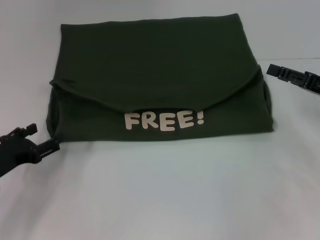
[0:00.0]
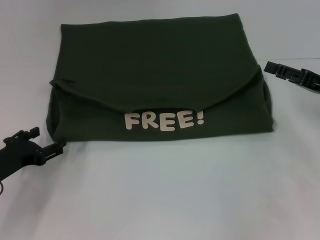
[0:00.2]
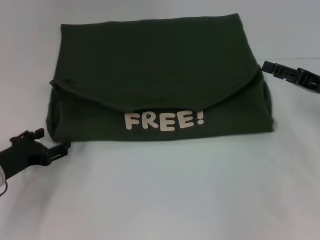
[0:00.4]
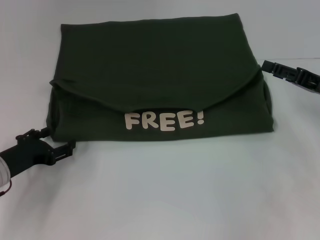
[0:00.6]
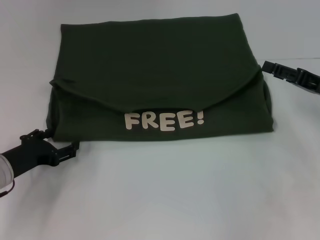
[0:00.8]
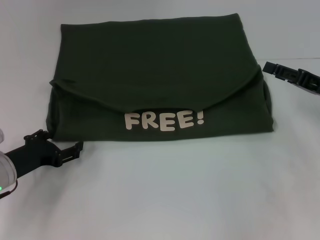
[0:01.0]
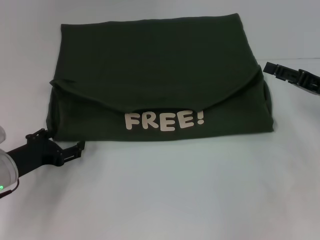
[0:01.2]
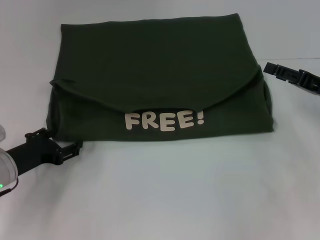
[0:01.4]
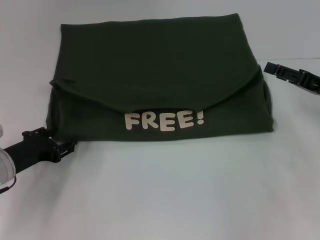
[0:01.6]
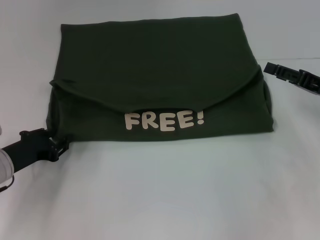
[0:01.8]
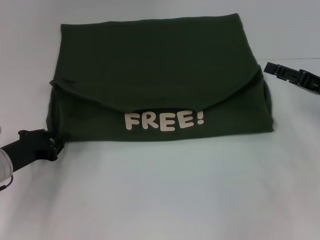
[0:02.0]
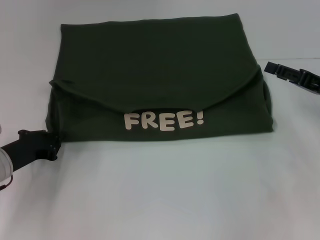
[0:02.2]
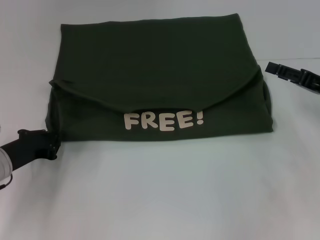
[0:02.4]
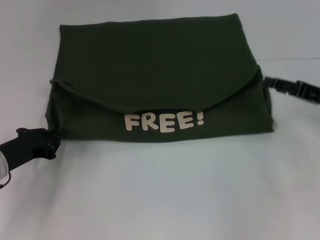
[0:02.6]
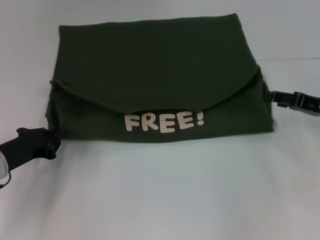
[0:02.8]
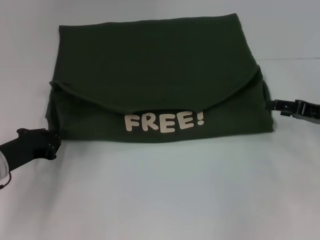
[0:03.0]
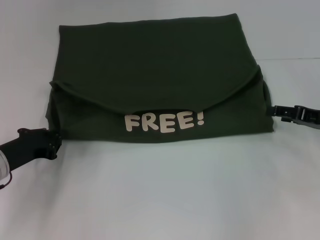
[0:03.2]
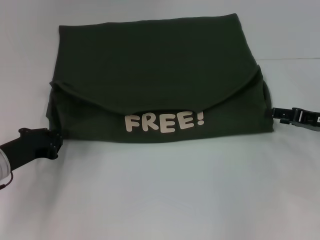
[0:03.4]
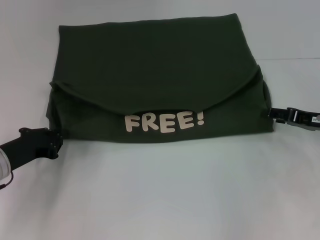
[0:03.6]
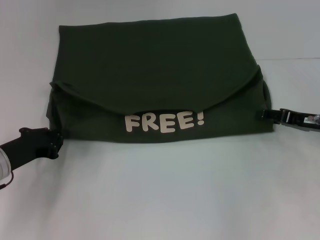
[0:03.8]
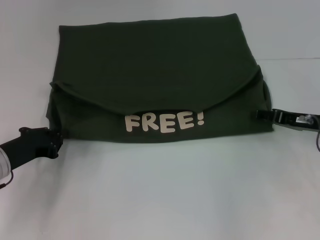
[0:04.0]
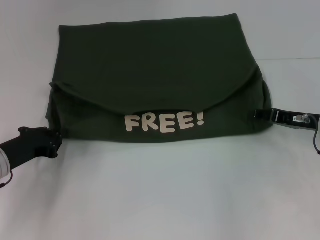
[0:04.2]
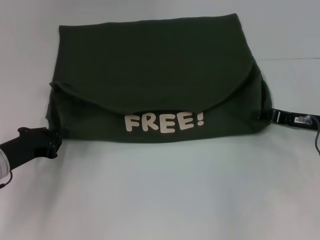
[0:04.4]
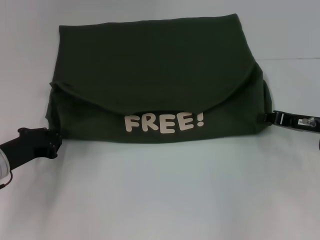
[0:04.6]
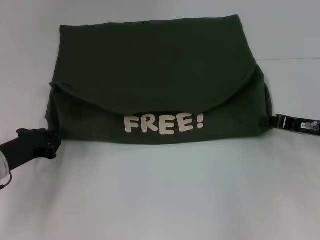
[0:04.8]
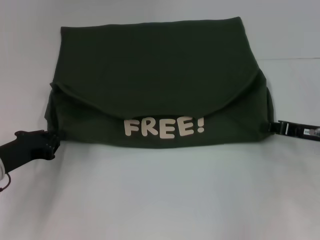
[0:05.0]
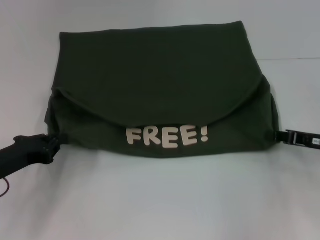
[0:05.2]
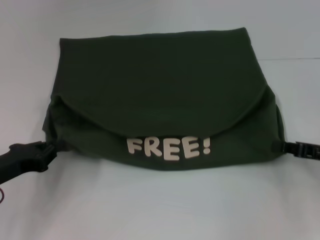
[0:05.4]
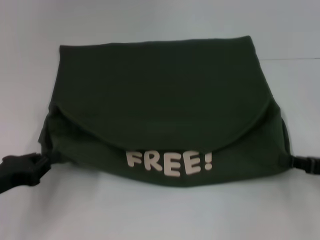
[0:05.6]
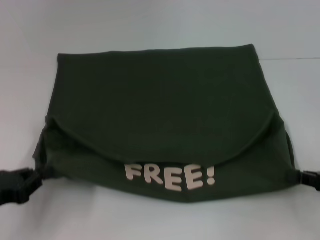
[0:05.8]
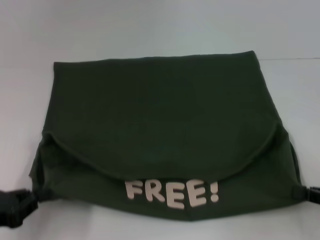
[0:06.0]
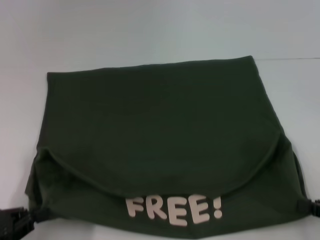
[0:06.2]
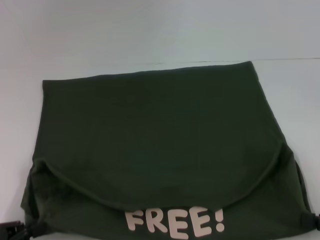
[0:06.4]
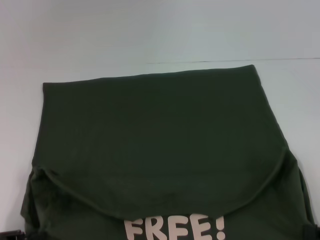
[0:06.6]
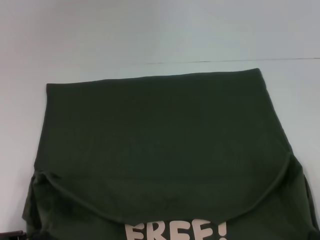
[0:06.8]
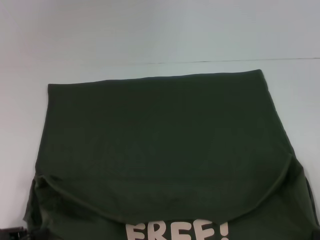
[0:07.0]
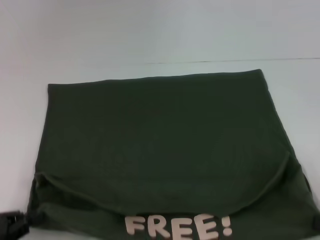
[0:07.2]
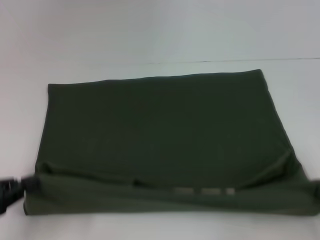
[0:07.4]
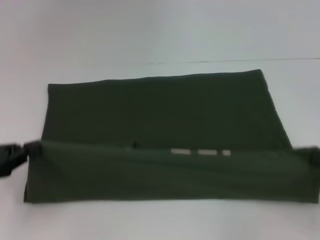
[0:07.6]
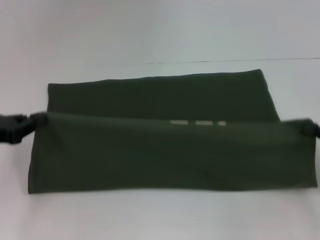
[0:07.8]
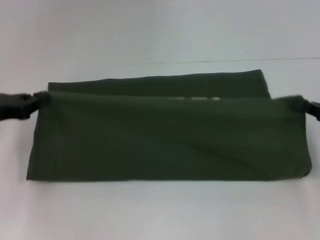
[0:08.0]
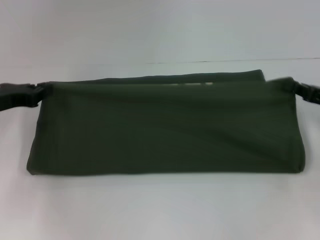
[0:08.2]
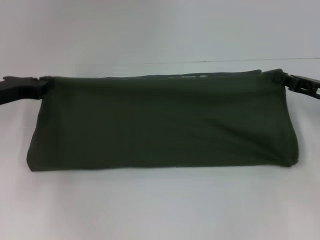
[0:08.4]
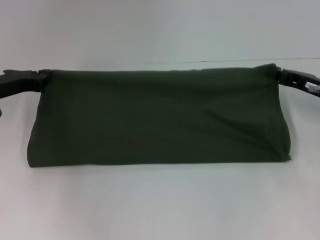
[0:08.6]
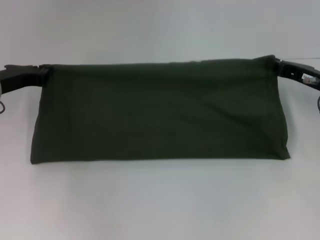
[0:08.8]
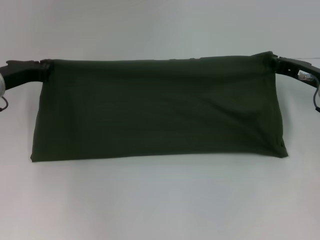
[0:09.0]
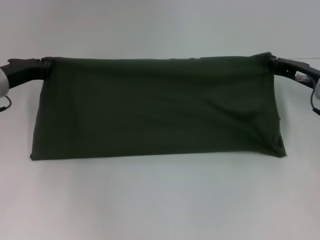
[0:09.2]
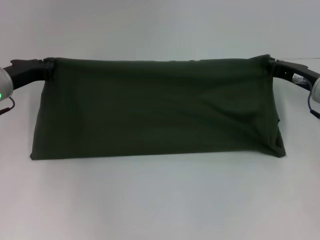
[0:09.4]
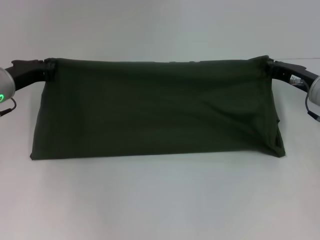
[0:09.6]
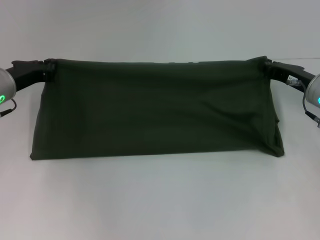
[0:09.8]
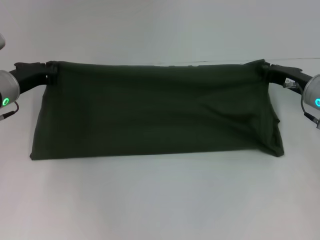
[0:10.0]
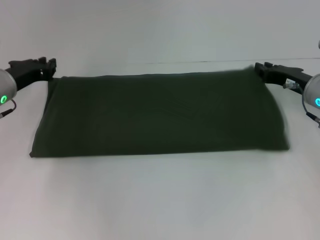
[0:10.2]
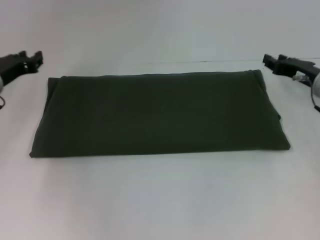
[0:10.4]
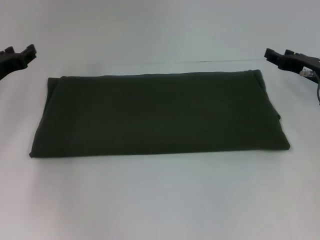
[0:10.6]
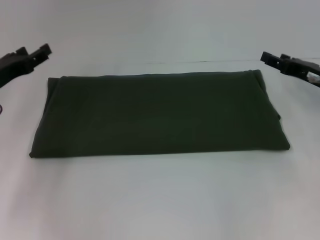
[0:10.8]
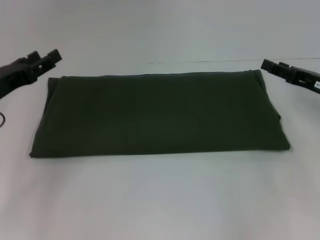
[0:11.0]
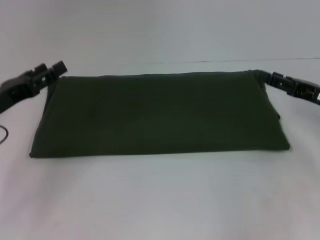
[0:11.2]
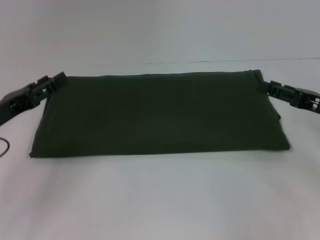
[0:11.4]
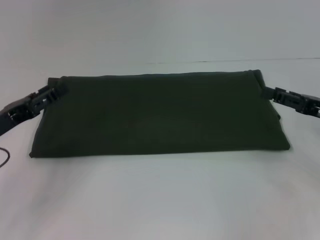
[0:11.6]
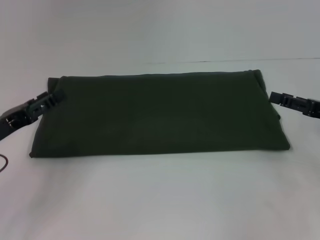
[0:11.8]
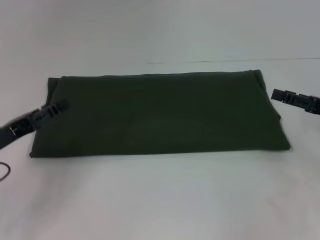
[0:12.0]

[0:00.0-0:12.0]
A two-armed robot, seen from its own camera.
Step, 0:00.0 to 0:06.4: Pull the clothes with your left hand.
Step, 0:00.0 to 0:06.4: Pull the clothes with your right hand.
Step, 0:06.6 to 0:10.6: Fold the clothes with your right hand.
0:00.0 to 0:01.6: The grippers stay close to where they were, moving slightly.
0:01.6 to 0:03.0: The left gripper closes up.
0:03.0 to 0:04.4: There are only small adjustments of the grippers.
0:04.4 to 0:06.0: The left gripper shifts about 10 cm backward; the right gripper shifts approximately 15 cm backward and to the right, and closes up.
0:06.0 to 0:07.6: The left gripper goes about 5 cm forward.
0:07.6 to 0:09.0: The left gripper travels forward by roughly 15 cm, while the right gripper moves forward and to the left, roughly 20 cm.
0:09.0 to 0:10.4: The grippers move only a little.
0:10.4 to 0:12.0: The left gripper shifts some 15 cm backward, and opens its fingers; the right gripper moves backward and to the right, some 10 cm, and opens up.

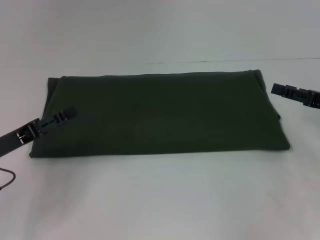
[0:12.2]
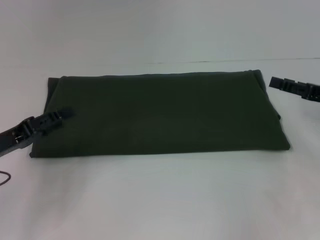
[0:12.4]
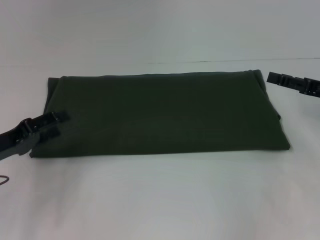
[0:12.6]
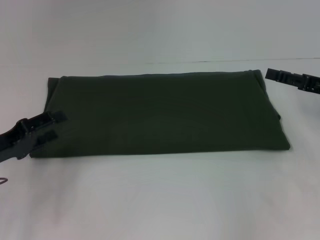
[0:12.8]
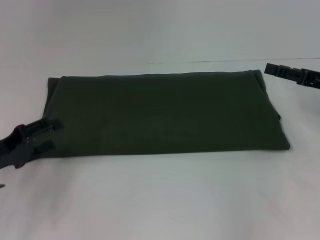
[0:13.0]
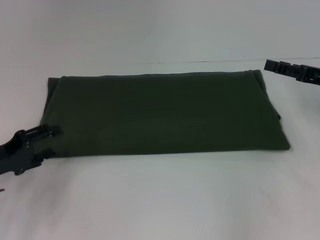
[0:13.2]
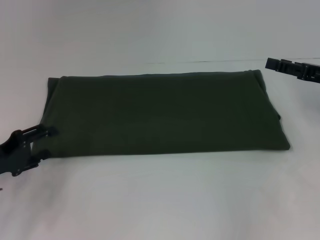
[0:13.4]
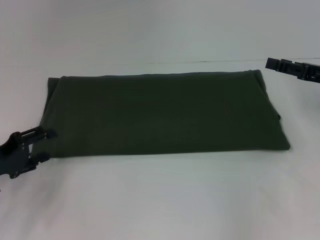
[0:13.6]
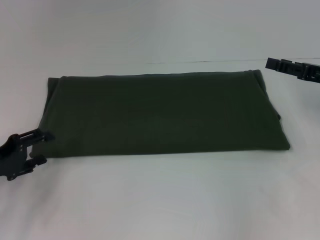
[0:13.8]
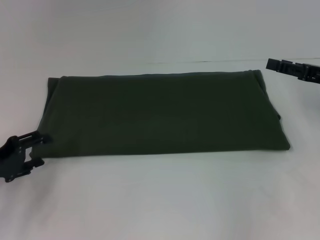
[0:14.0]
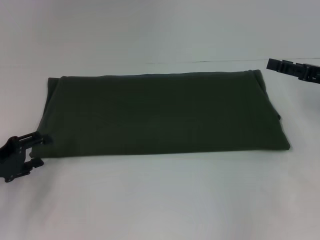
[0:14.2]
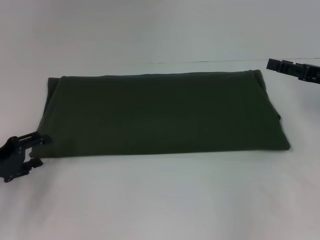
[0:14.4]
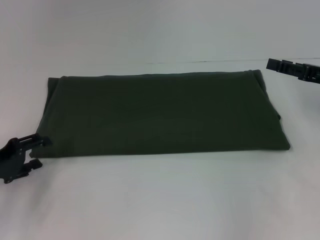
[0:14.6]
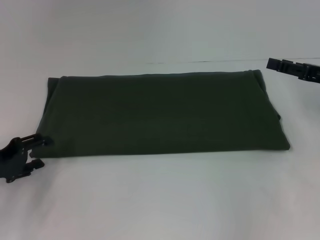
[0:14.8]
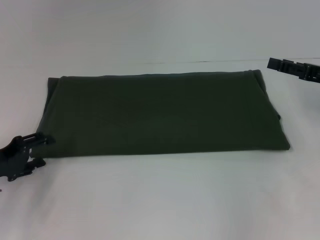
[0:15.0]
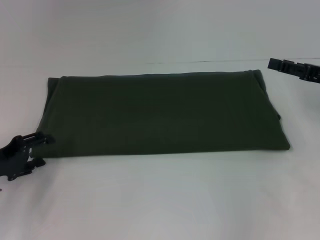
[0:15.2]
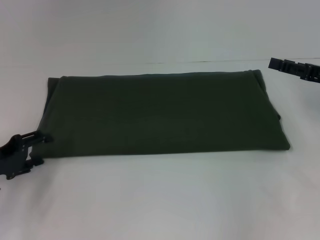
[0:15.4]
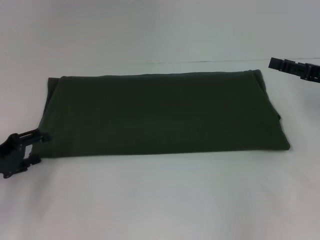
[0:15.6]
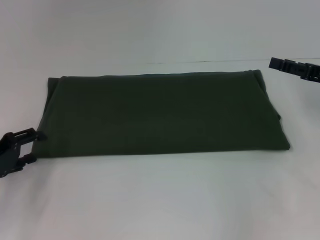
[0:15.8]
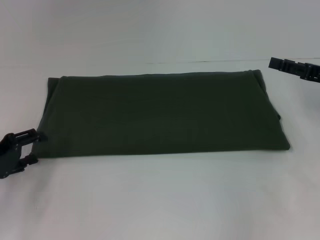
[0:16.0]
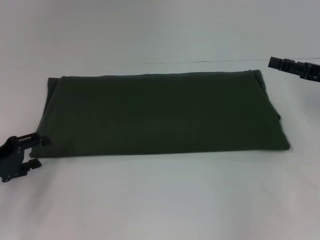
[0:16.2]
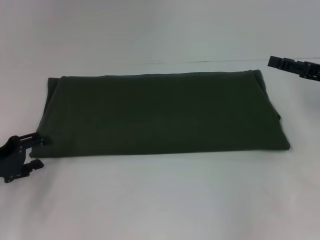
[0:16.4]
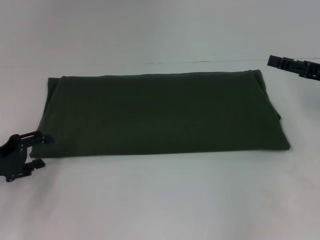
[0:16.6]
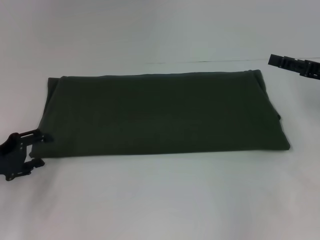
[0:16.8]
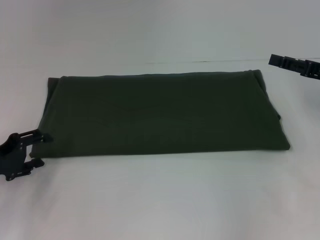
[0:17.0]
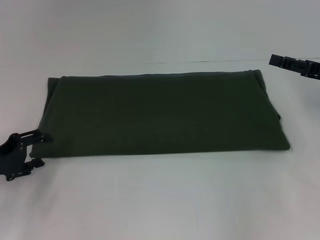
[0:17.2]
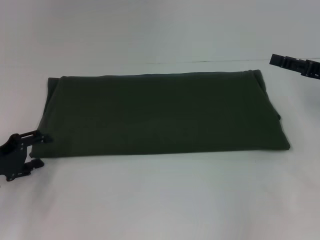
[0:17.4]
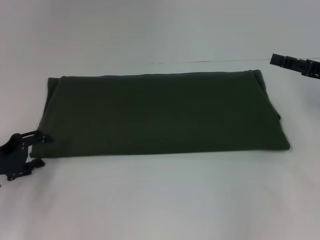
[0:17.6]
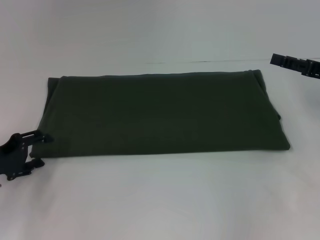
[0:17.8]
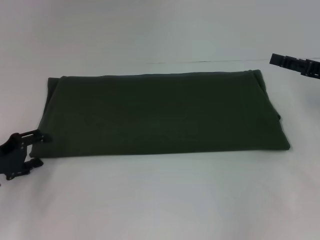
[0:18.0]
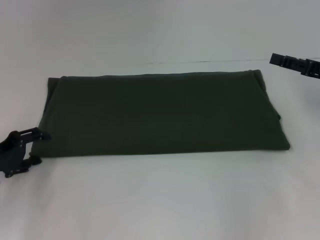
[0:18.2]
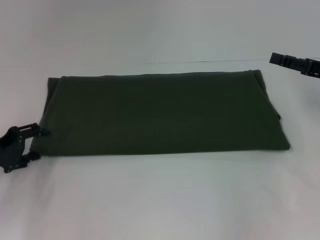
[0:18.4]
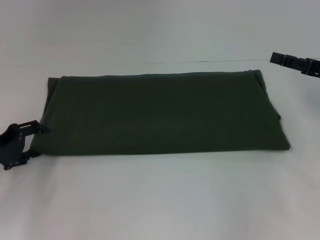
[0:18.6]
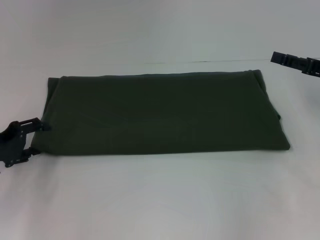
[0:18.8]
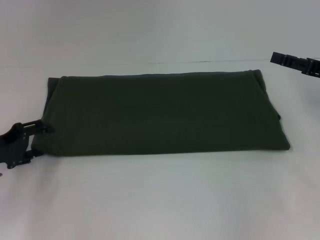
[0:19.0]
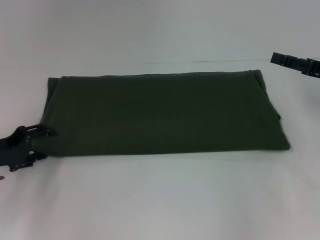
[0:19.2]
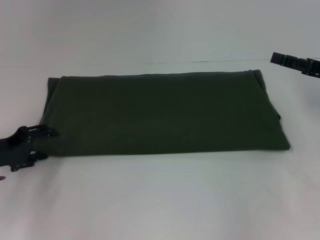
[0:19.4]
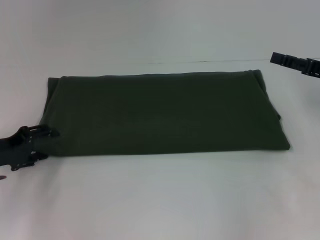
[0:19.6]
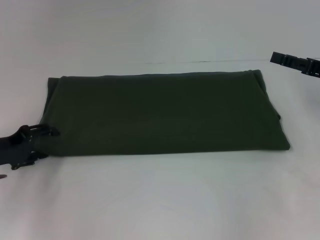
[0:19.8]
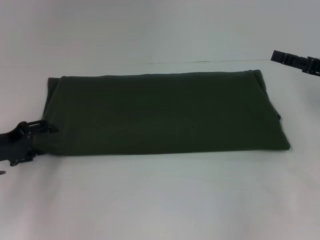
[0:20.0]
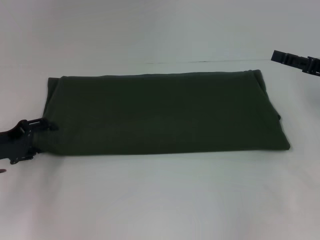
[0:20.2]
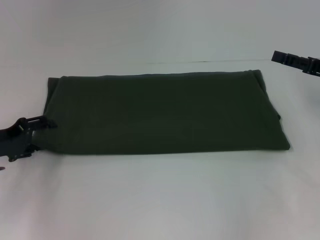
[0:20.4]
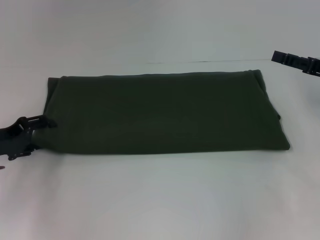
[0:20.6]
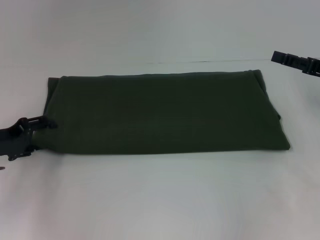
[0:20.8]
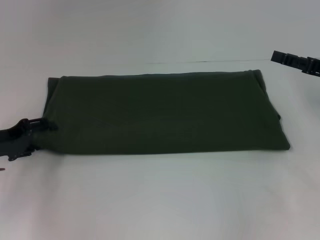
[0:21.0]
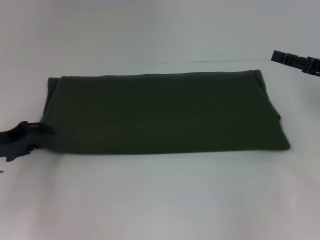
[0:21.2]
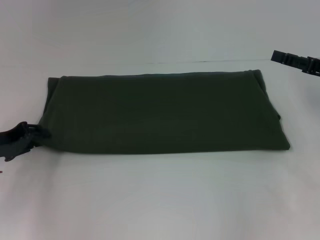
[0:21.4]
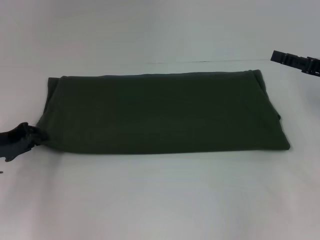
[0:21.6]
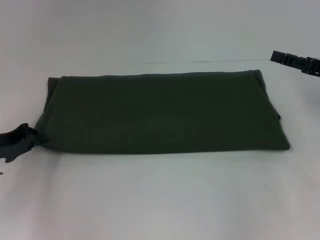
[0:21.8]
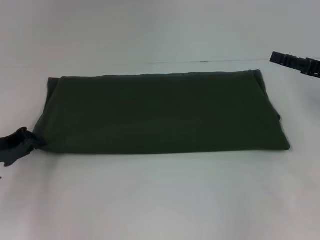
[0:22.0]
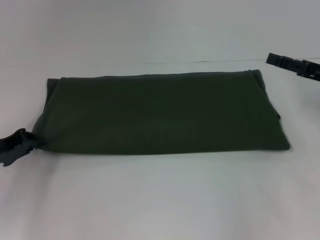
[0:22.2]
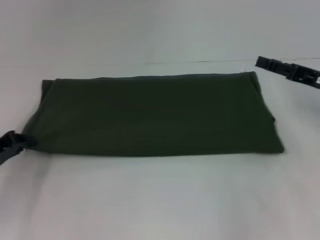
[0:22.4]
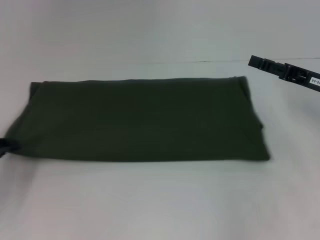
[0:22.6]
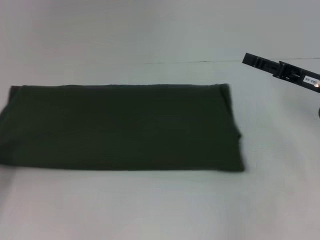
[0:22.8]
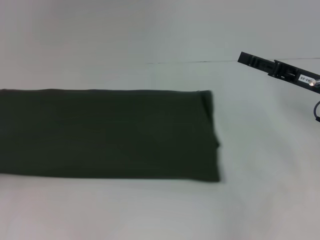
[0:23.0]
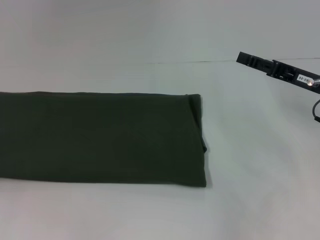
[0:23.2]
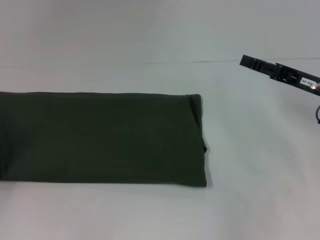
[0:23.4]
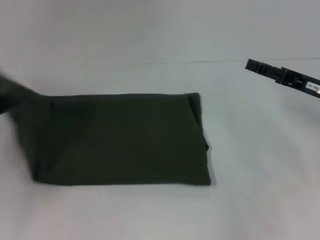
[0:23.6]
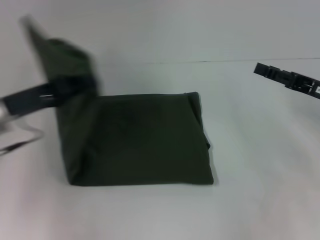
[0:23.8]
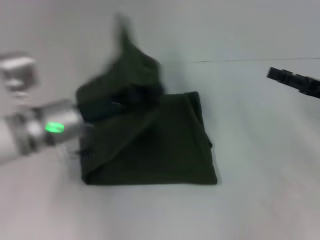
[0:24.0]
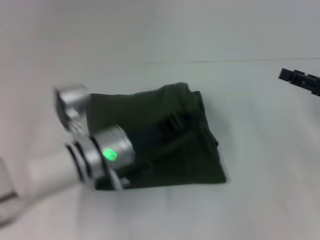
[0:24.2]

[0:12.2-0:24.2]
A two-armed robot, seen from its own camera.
0:13.8 to 0:15.2: Neither gripper changes place.
0:15.2 to 0:16.6: The two grippers keep their place.
0:16.6 to 0:18.2: Both grippers stay about where they are.
0:18.2 to 0:21.2: There are only small adjustments of the grippers.
0:21.2 to 0:22.6: The left gripper changes place by approximately 5 cm, and closes its fingers.
0:22.6 to 0:24.2: The right gripper shifts by about 5 cm. Meanwhile the left gripper heads to the right, covering approximately 25 cm.
